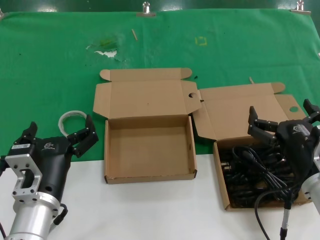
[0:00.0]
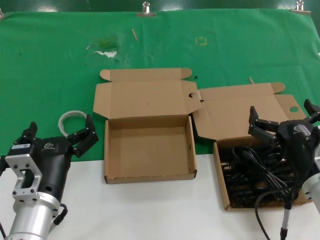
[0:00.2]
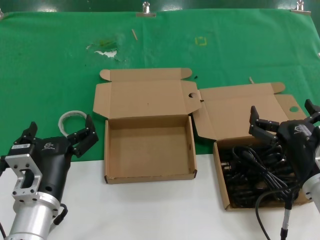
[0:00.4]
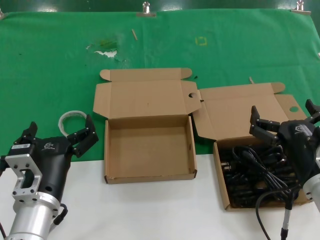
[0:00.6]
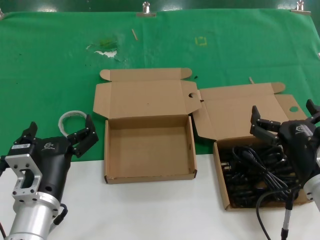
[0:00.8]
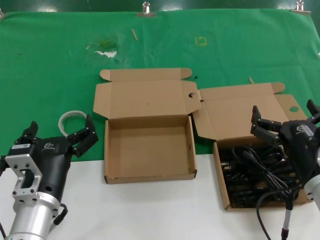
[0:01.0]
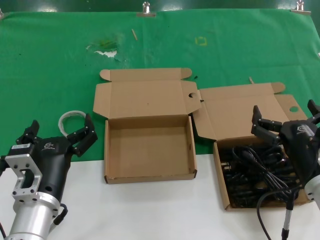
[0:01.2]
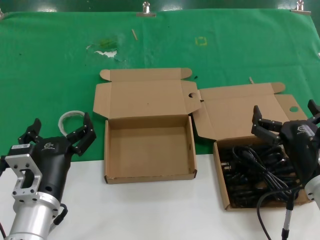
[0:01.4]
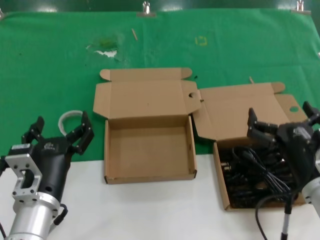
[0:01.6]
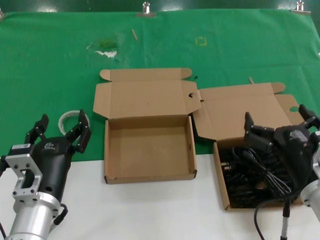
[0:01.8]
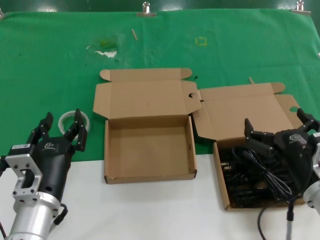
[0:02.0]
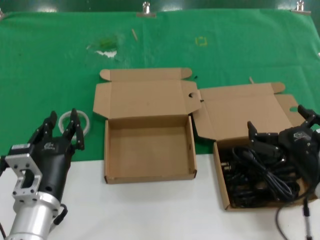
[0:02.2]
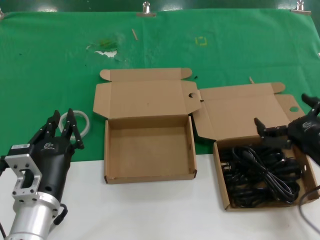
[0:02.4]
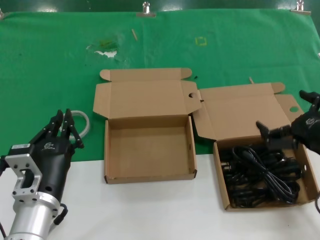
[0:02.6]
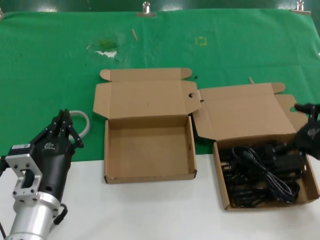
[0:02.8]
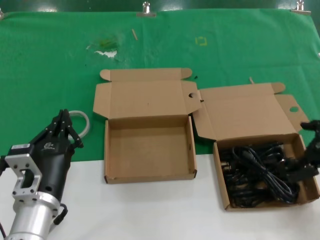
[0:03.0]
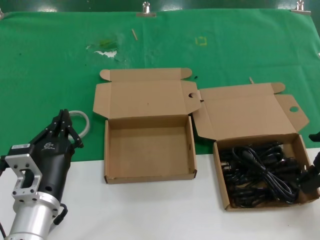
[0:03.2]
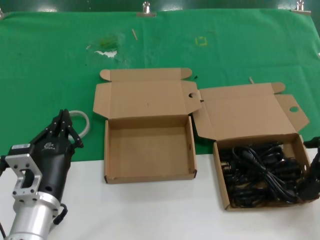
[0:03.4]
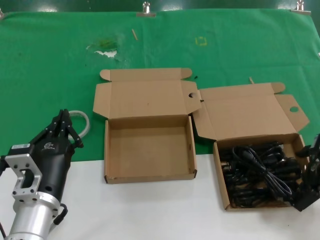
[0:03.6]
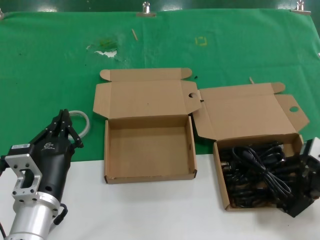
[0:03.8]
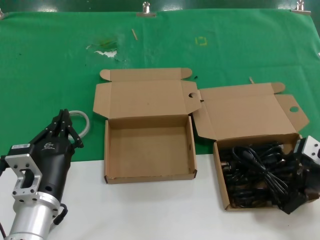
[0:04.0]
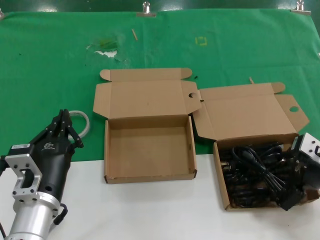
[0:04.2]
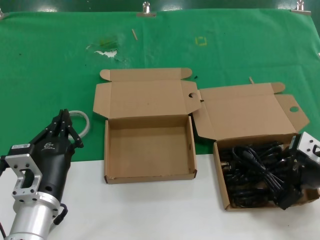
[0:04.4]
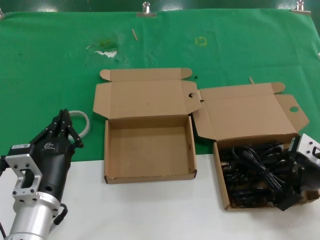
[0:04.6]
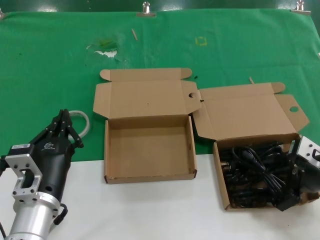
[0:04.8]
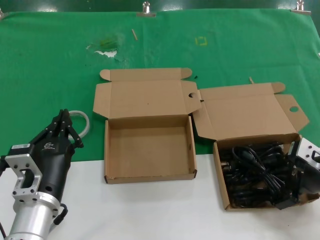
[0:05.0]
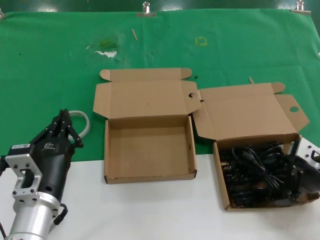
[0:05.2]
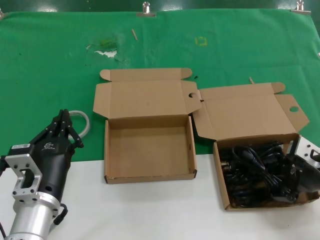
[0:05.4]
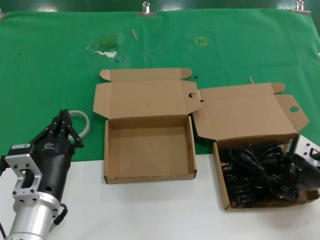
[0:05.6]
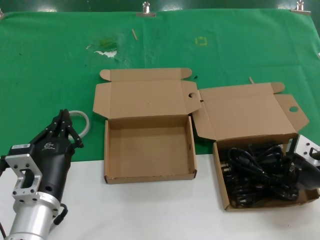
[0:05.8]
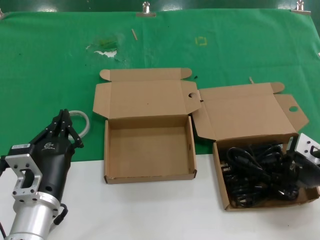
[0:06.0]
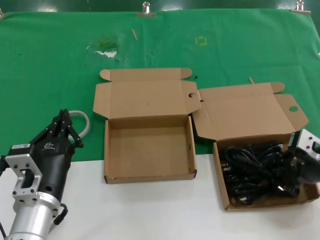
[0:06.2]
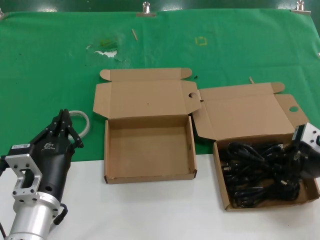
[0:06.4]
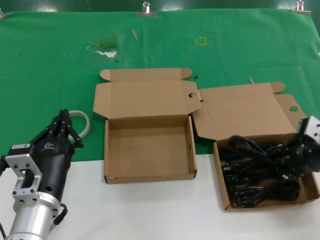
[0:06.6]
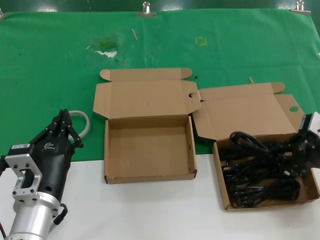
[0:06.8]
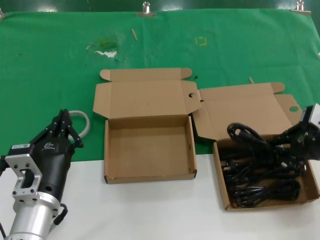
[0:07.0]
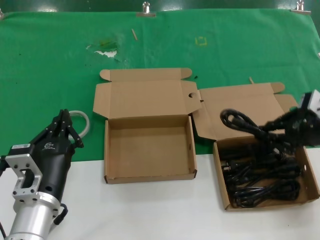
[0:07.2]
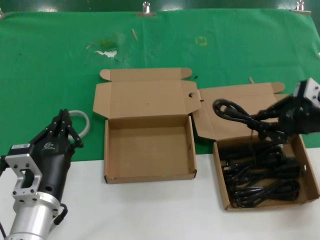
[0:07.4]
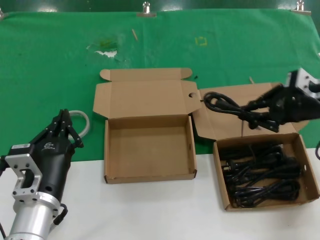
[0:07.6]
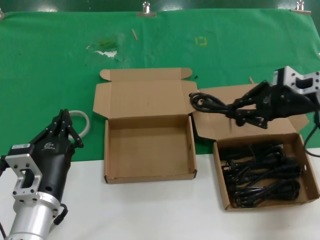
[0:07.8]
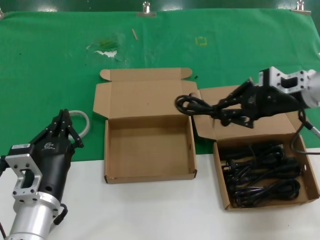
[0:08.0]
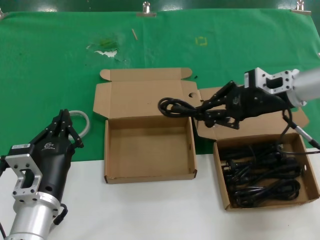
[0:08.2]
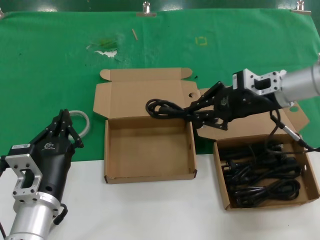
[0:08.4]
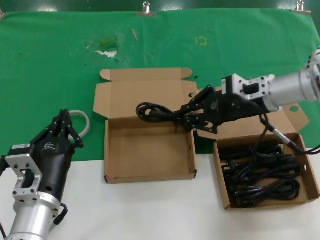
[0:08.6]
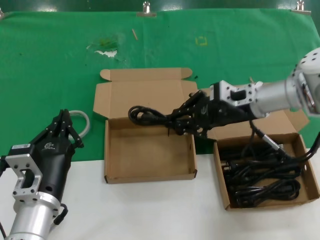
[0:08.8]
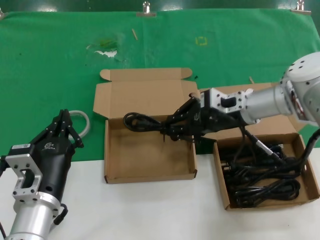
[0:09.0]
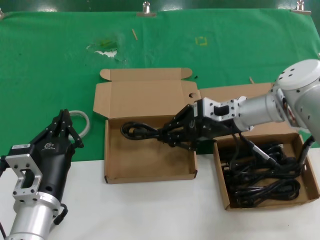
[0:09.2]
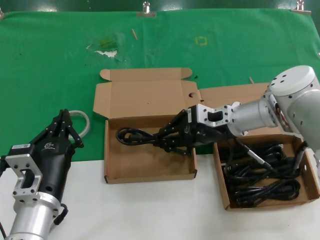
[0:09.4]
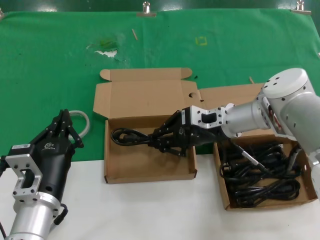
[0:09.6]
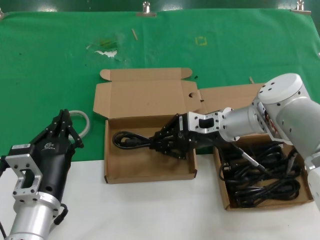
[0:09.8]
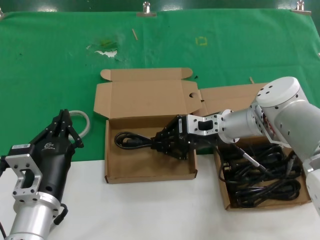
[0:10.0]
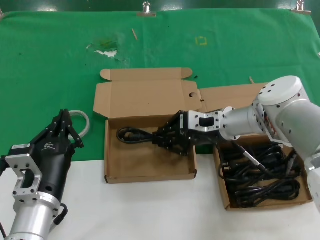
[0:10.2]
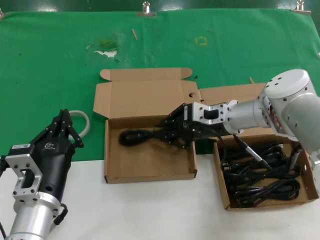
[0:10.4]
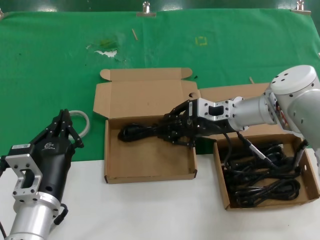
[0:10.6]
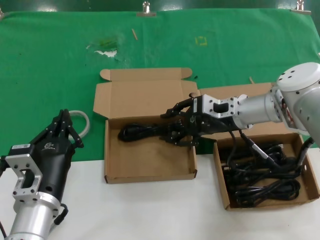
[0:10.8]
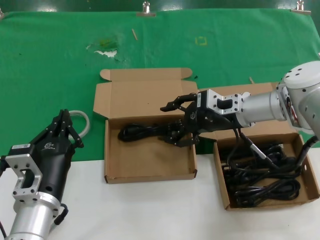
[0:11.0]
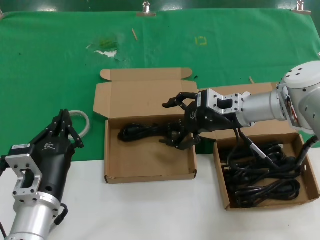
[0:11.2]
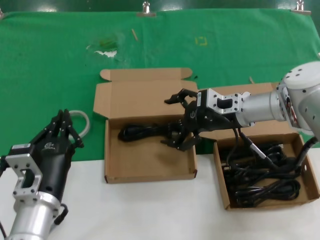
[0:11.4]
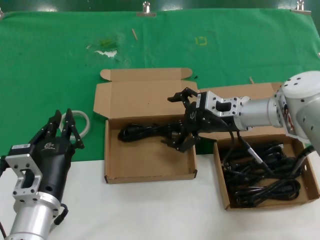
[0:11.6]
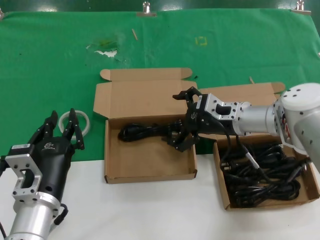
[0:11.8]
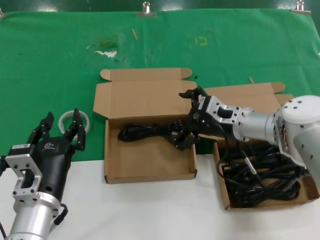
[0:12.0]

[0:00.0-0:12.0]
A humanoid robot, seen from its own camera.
Task of the whole recording: take the parts from the box containing them and put them into an empty box.
Step, 0:00.0 to 0:05.8: Grasp the data cable.
Step, 0:06.0 to 0:10.4: Place the data cable in the another box.
0:00.0 to 0:01.6: The two hands keep their place.
0:01.6 to 0:03.0: The right hand shifts roughly 15 cm to the right and upward.
0:03.0 to 0:04.4: The right hand ends up roughly 5 cm from where it was.
0:04.4 to 0:06.0: Both hands stay put.
0:06.0 to 0:07.6: The right hand heads forward and upward, covering roughly 10 cm.
0:07.6 to 0:09.0: The right hand moves to the left, forward and downward, roughly 15 cm.
0:09.0 to 0:10.4: The right hand moves roughly 5 cm.
0:10.4 to 0:12.0: There are only small adjustments of the hands.

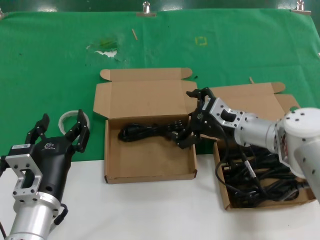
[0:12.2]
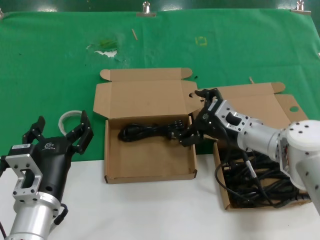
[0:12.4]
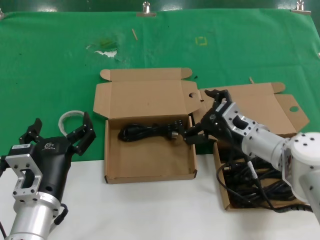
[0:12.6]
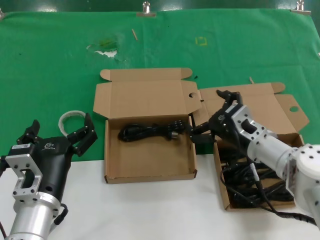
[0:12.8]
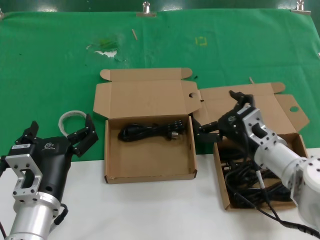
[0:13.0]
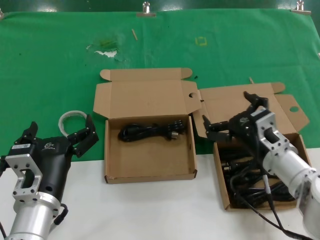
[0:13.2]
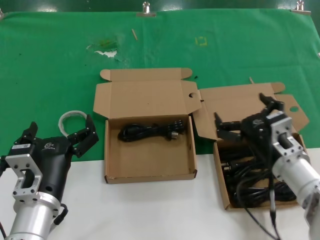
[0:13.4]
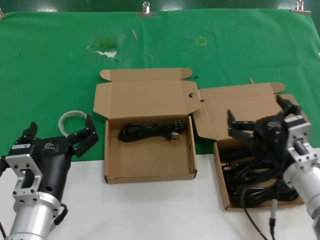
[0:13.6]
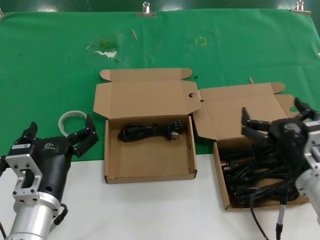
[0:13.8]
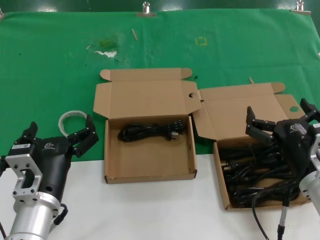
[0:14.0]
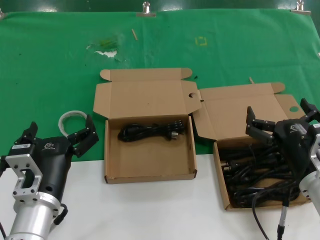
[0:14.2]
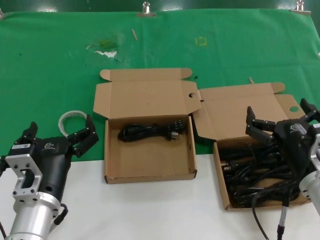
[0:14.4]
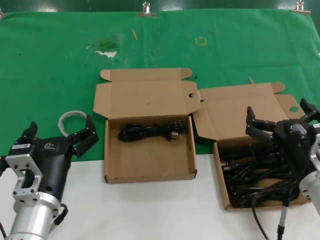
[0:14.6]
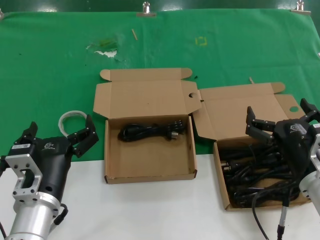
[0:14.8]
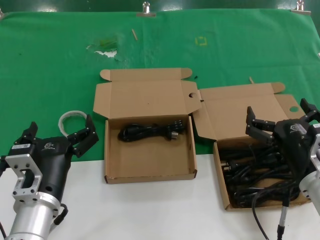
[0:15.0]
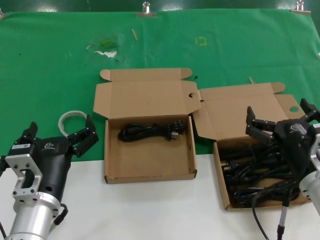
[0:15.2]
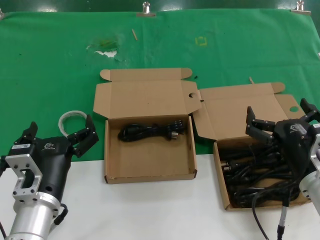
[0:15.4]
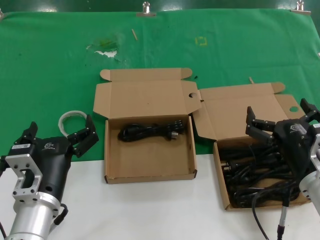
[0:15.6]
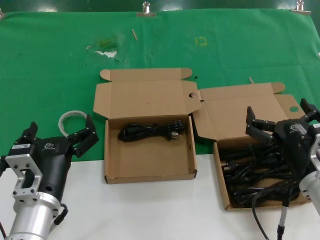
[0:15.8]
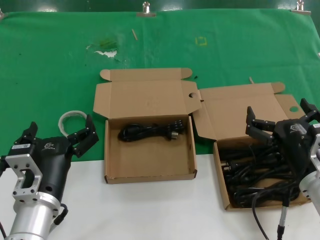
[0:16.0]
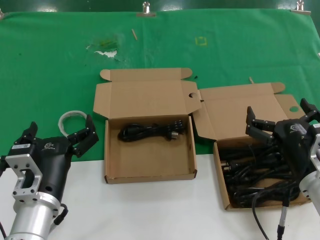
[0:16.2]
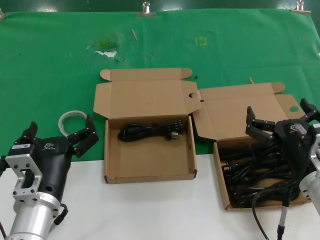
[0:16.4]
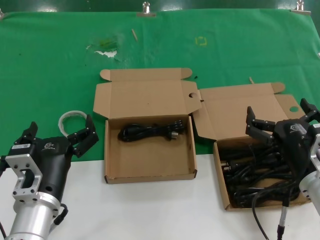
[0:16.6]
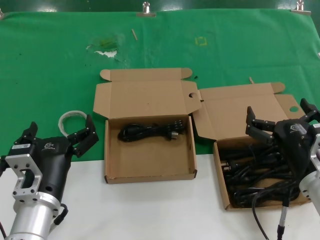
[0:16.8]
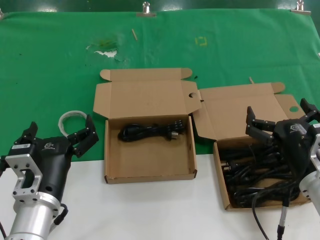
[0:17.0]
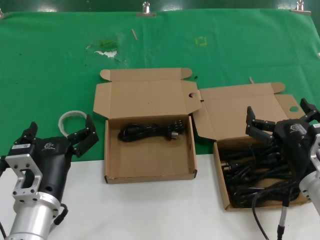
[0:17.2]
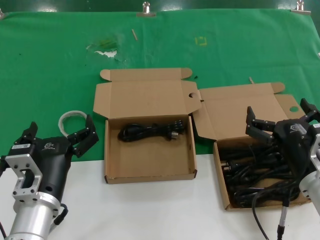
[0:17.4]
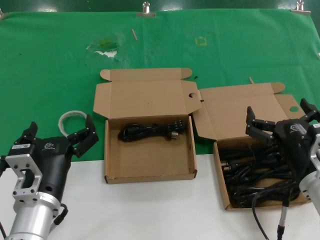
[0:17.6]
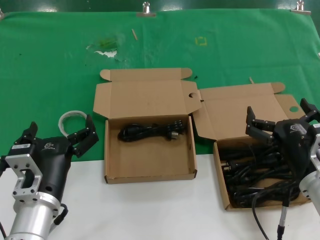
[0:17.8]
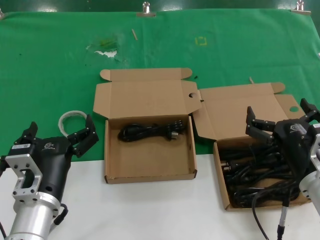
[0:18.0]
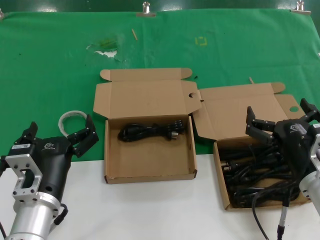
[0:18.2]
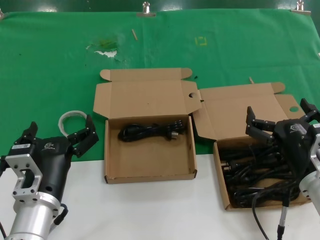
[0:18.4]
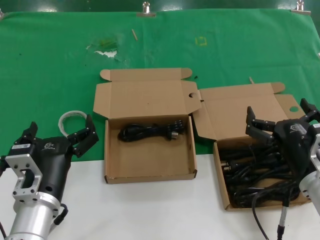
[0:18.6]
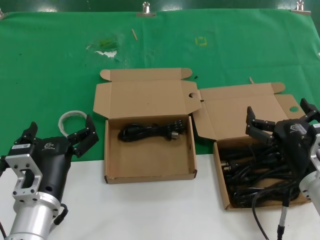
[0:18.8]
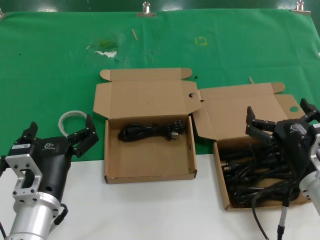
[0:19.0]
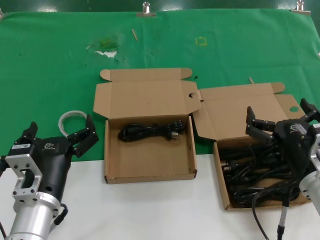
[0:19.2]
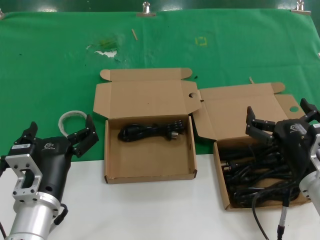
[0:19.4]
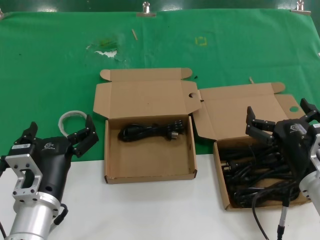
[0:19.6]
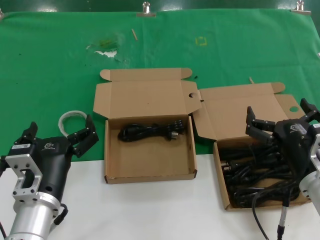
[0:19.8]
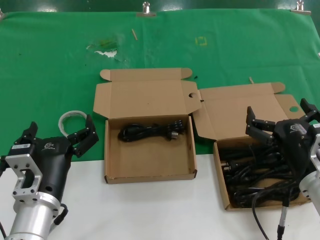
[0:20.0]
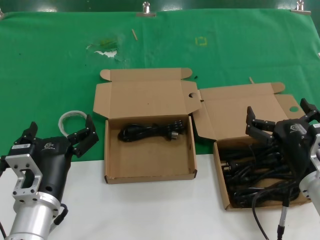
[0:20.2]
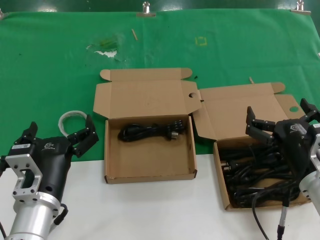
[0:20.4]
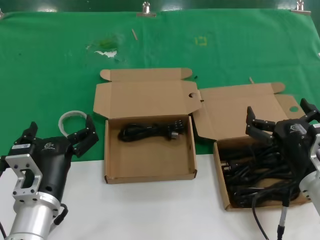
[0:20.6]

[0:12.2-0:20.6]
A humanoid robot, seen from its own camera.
Task of the whole recording: take the parts from the box containing them and put them into an empty box.
0:12.2 to 0:13.6: The right hand heads backward, covering about 15 cm.
0:13.6 to 0:15.0: The hands make only small movements.
0:15.0 to 0:20.6: The two hands keep their place.

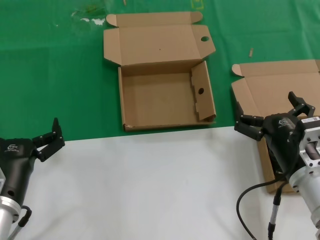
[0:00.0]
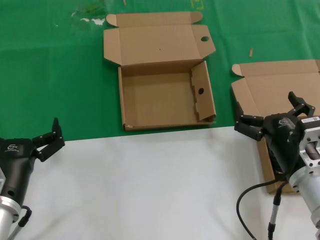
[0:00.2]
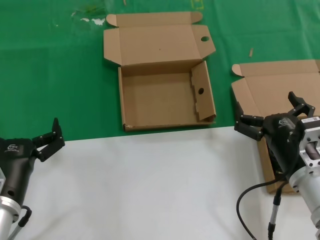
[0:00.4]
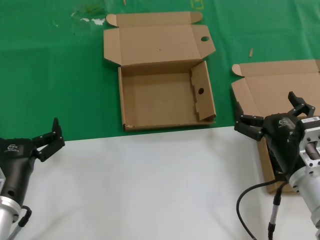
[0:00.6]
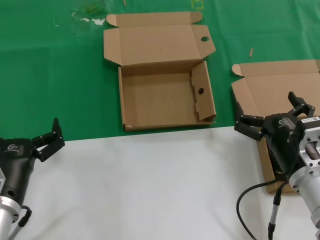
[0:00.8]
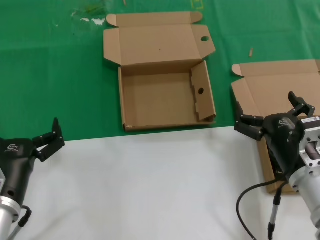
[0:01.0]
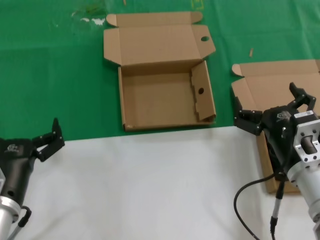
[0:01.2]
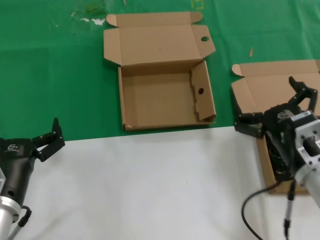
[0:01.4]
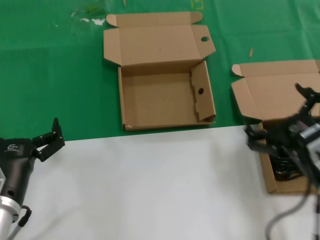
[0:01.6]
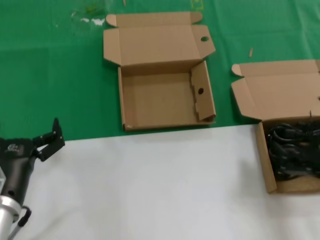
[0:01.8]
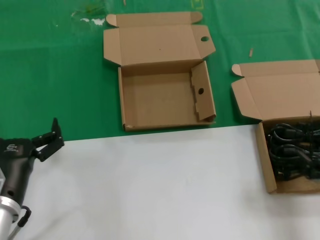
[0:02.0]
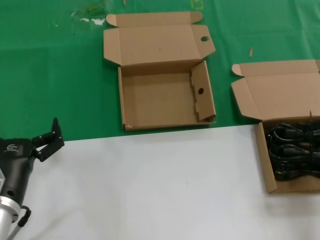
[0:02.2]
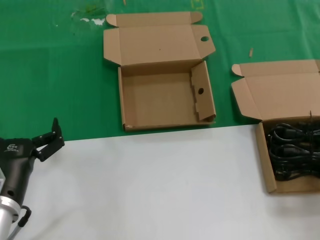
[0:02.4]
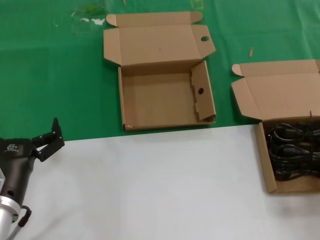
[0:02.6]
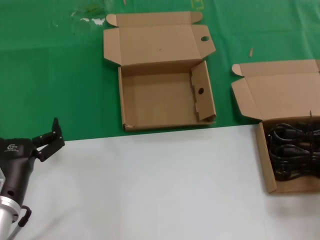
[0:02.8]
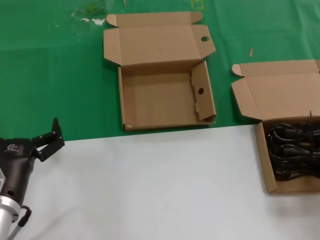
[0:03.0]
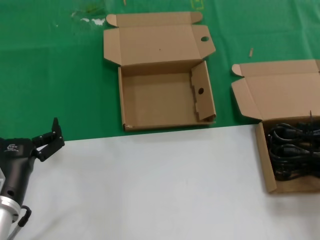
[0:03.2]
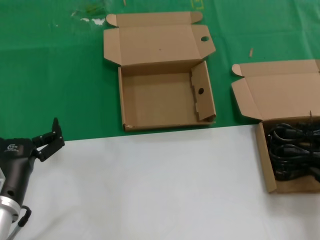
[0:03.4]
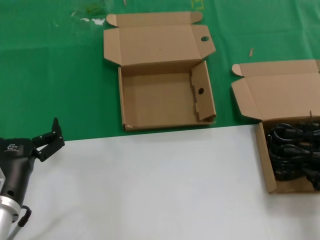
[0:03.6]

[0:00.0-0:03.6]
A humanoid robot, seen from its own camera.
Task of the whole recording: take the parts from the box containing them and put them into an empty box.
0:00.0 to 0:01.8: The right hand shifts about 10 cm backward, to the right and upward.
0:01.8 to 0:03.6: The right hand shifts some 10 cm to the right.
